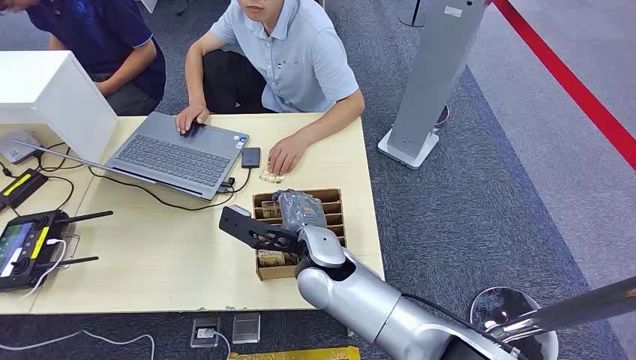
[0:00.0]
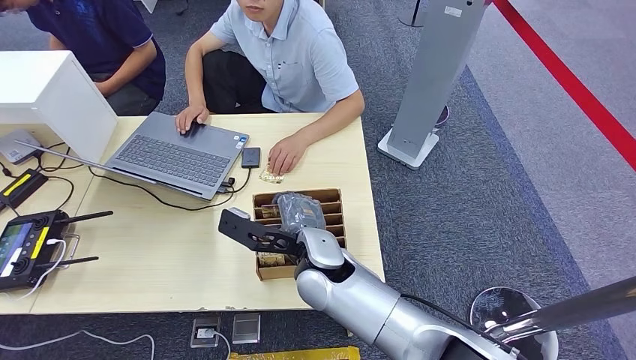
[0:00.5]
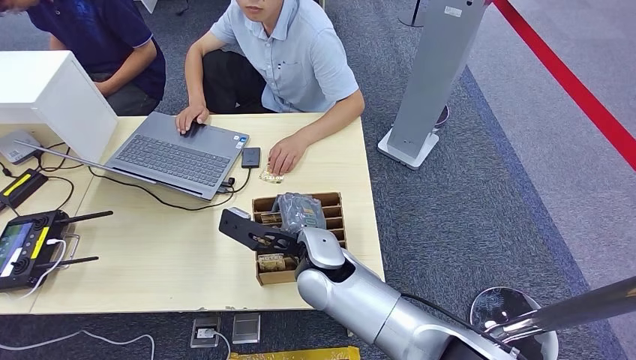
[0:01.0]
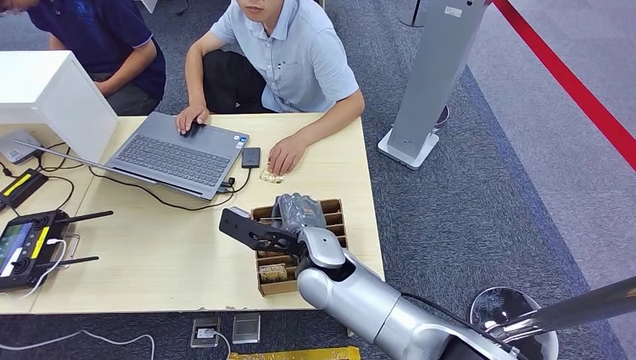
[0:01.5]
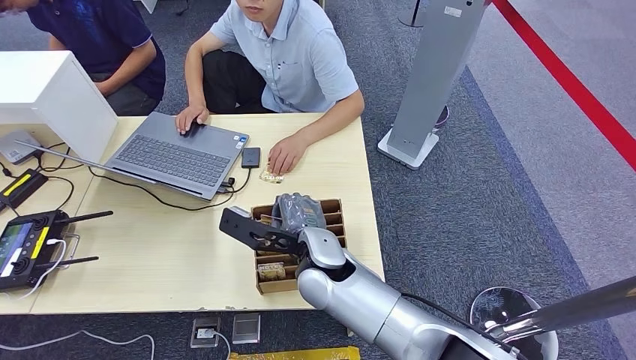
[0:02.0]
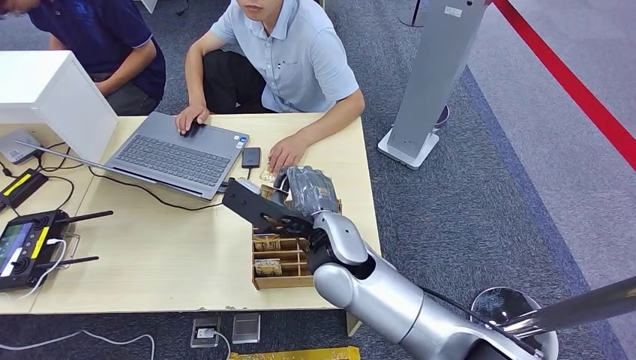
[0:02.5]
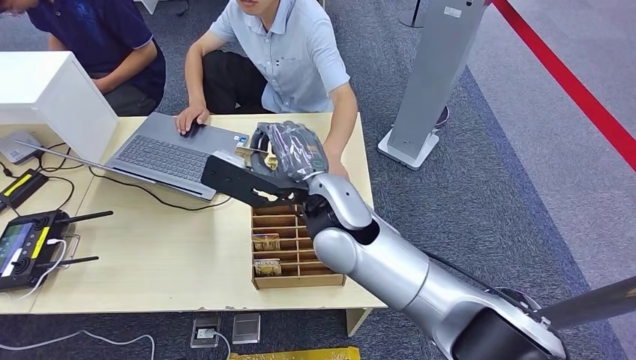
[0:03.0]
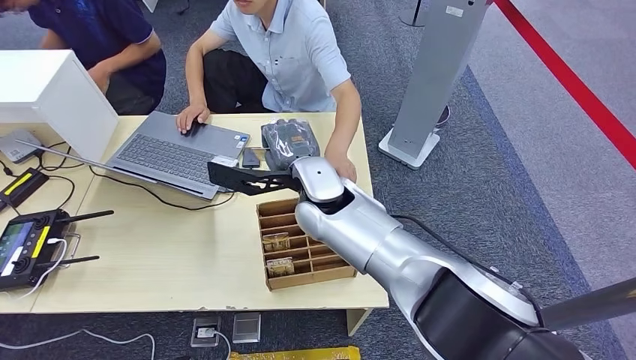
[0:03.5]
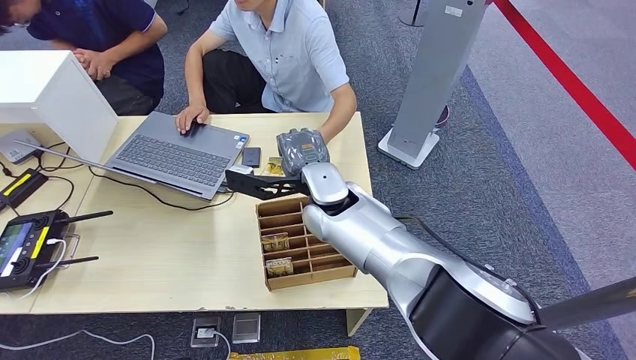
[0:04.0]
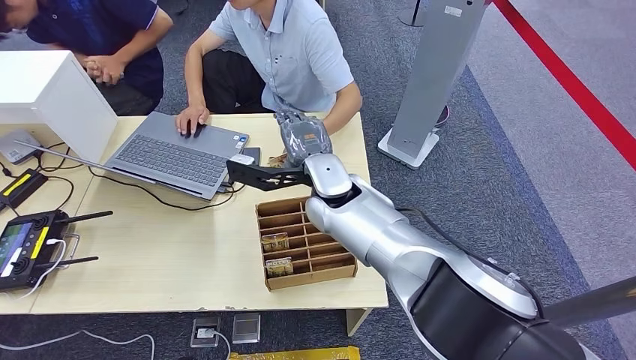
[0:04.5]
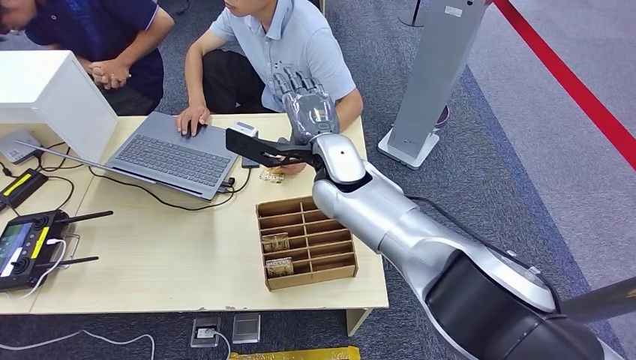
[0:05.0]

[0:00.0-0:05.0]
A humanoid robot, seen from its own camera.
Step, 0:00.0 to 0:02.5: Pick up the key card from the card box.
Step, 0:03.0 to 0:05.0: Hand the key card to the target.
